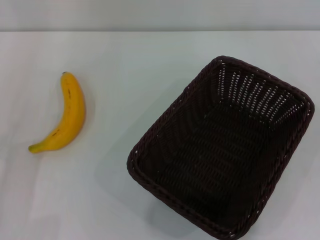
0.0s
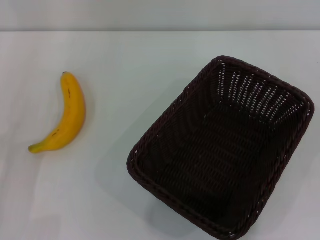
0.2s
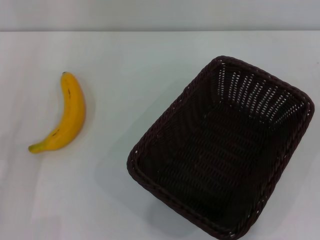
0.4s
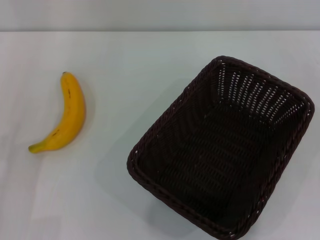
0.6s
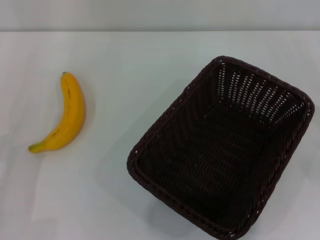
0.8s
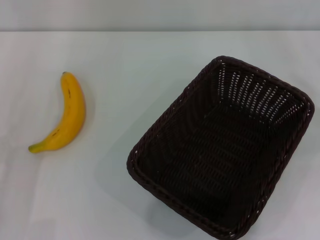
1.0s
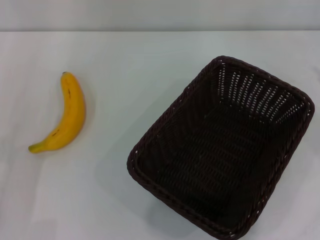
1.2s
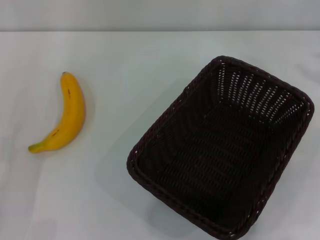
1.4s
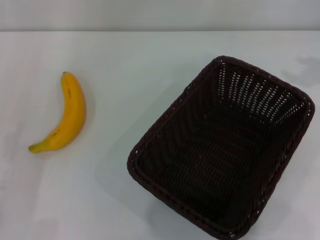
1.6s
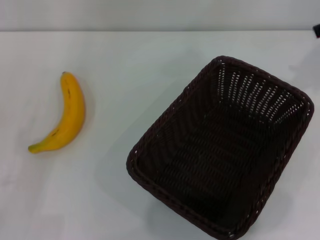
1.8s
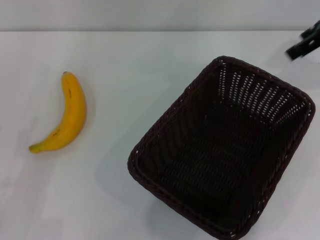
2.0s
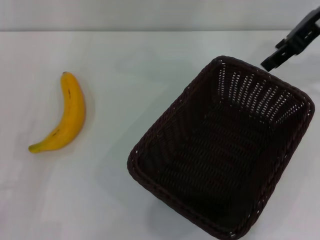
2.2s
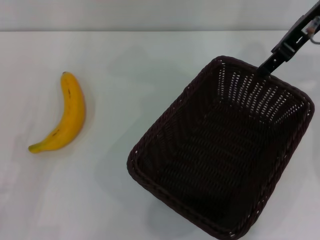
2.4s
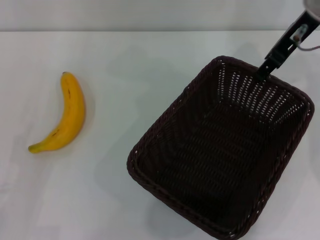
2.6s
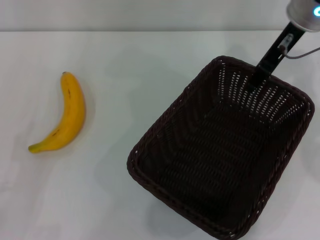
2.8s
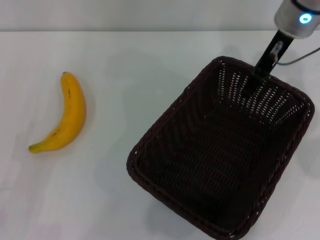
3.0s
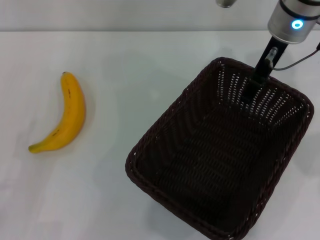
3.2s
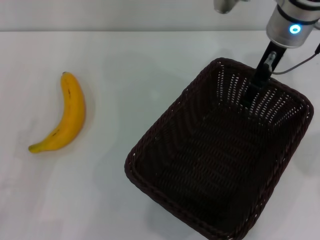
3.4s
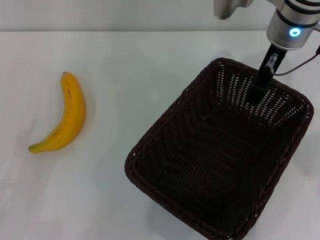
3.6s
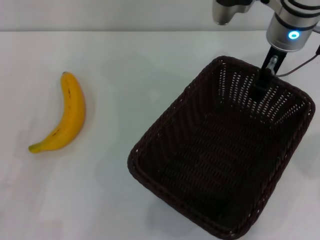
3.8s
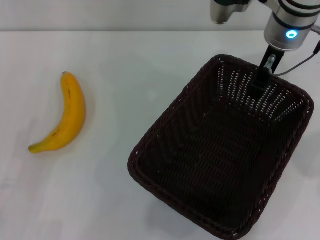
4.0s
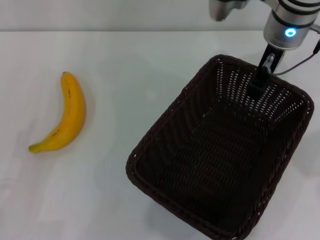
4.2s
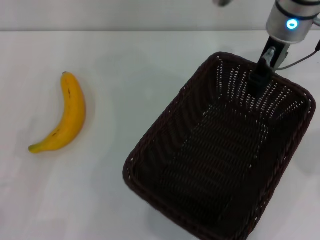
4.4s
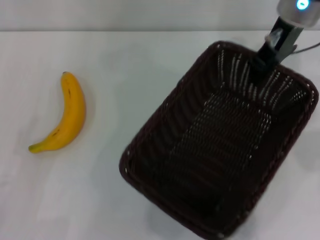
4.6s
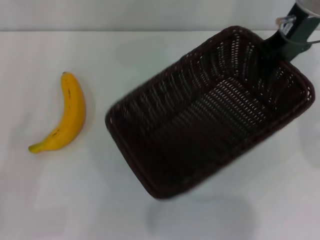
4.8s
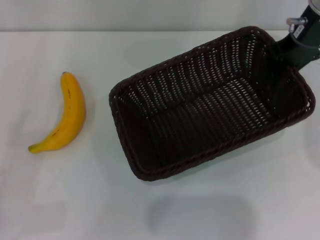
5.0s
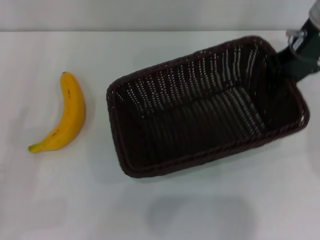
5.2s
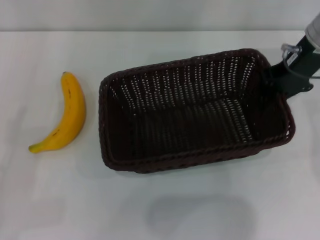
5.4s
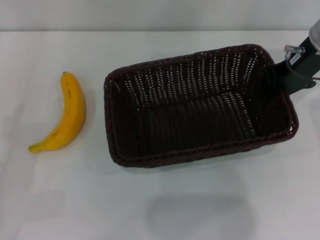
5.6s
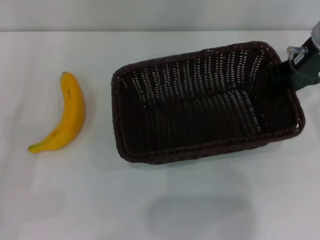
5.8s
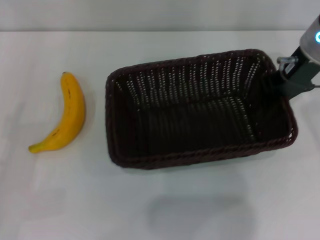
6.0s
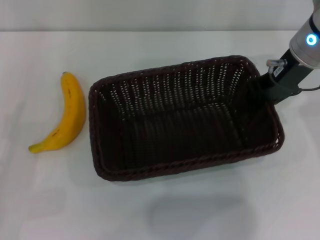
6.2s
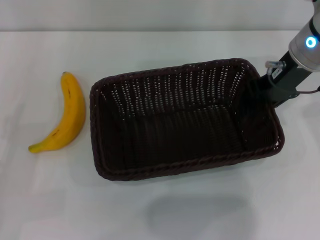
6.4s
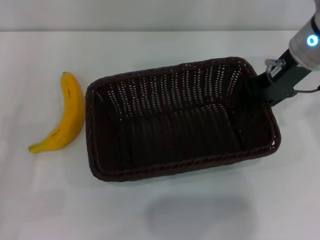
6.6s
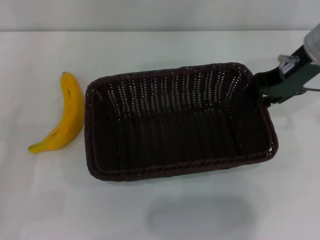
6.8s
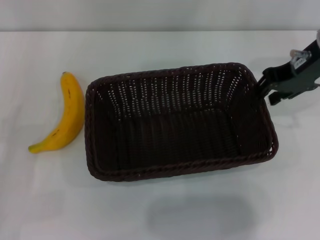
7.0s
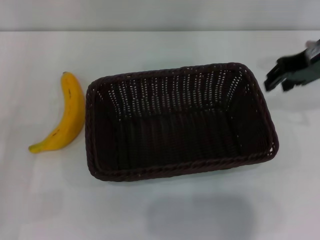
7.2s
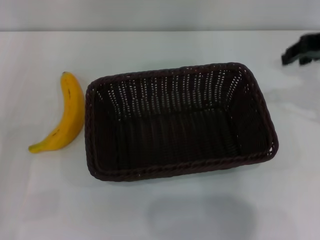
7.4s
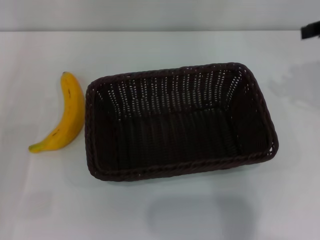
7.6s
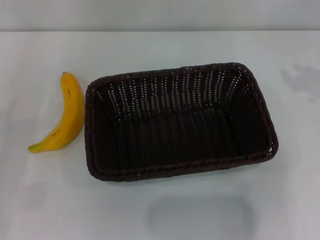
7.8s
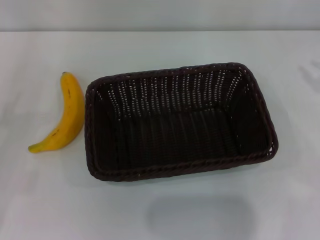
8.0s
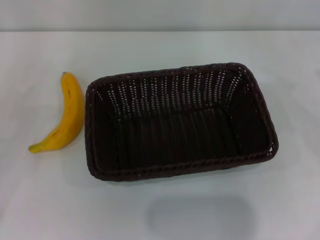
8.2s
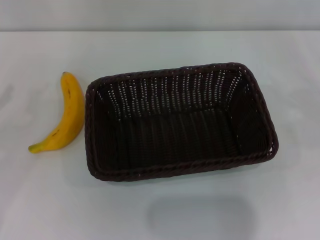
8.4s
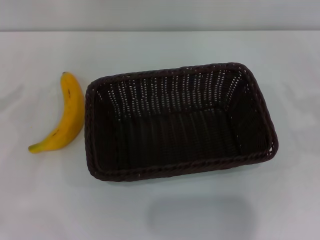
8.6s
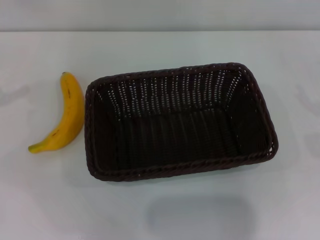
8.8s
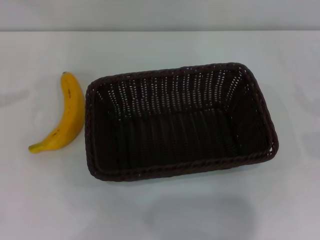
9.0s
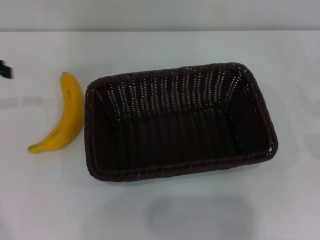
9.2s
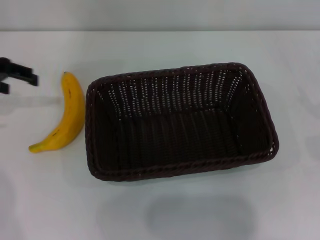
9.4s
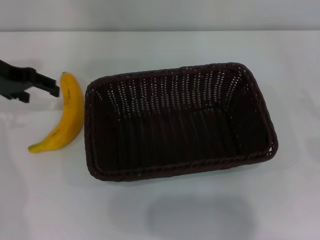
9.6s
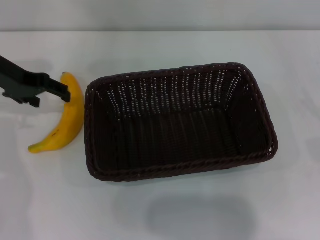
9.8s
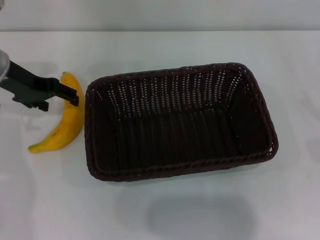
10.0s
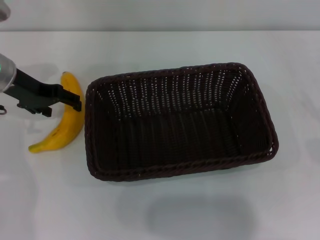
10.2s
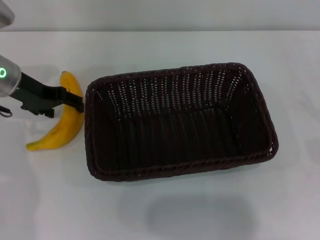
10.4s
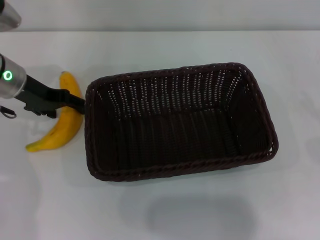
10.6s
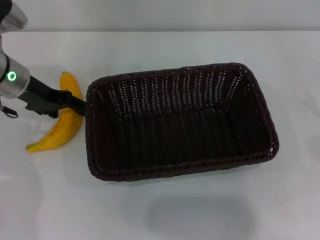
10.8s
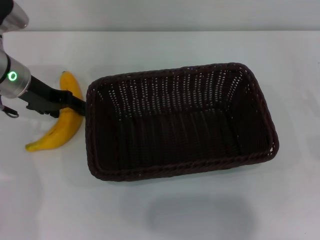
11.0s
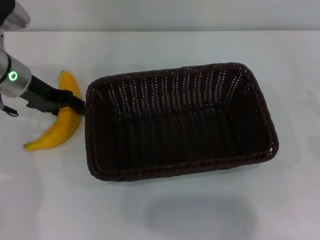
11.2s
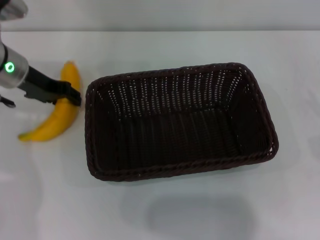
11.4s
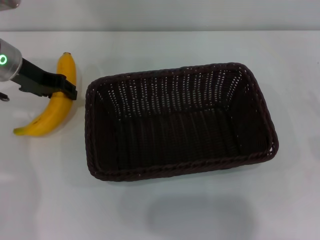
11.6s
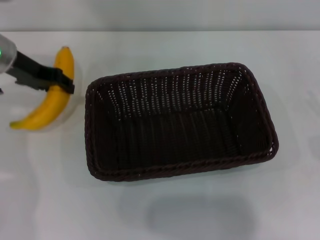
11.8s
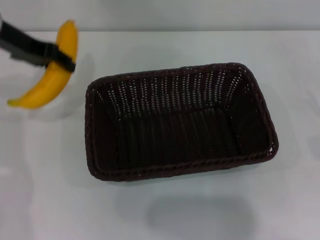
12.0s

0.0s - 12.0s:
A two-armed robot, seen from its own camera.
Step, 0.0s - 4.6s: Pick up the dark basket with the right gripper.
Step, 4.8s - 7.2s: Place the dark basket in the center of view with the right gripper.
Step, 7.4s - 11.8s: Pick up the banana with the left gripper.
1.6s - 3.0s: The right gripper goes some 20 cm to the left.
3.0s - 4.4s: The right gripper closes up.
4.4s - 6.0s: The right gripper changes place by about 5 cm.
6.0s - 7.6s: The right gripper heads to the right, backward and upward, covering approximately 15 cm, and opens up.
9.0s - 10.4s: The left gripper heads to the right and downward, covering approximately 15 cm.
10.4s - 12.0s: The left gripper shifts approximately 10 cm upward, and closes up.

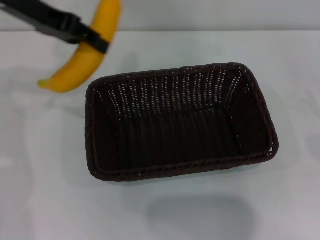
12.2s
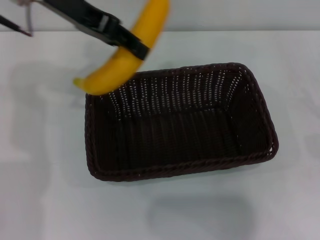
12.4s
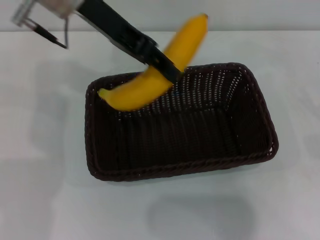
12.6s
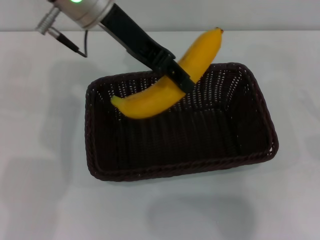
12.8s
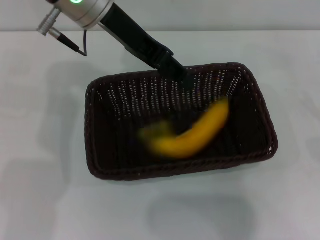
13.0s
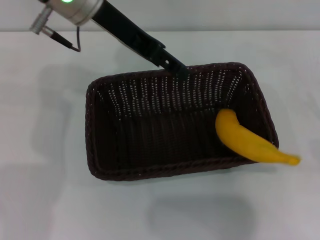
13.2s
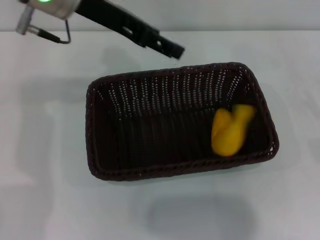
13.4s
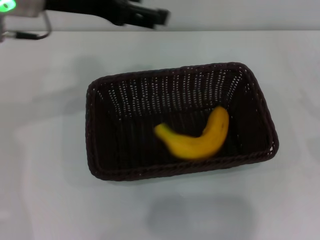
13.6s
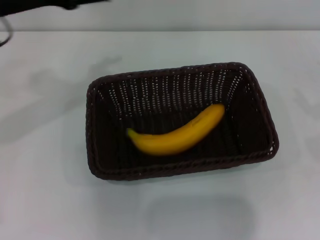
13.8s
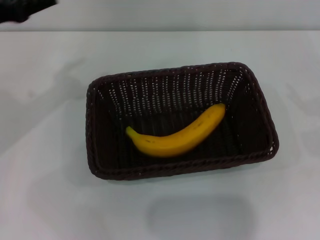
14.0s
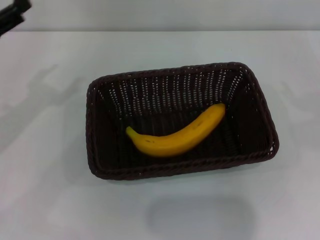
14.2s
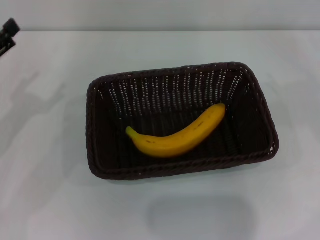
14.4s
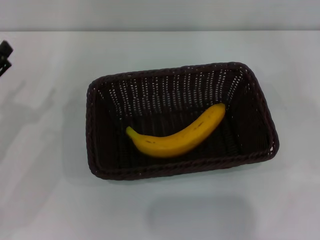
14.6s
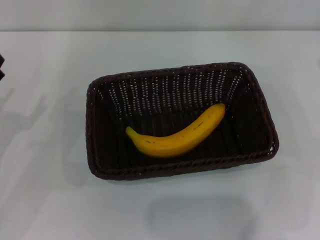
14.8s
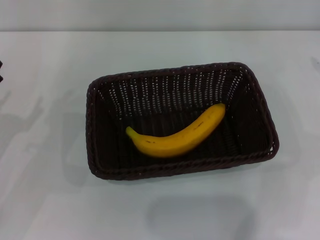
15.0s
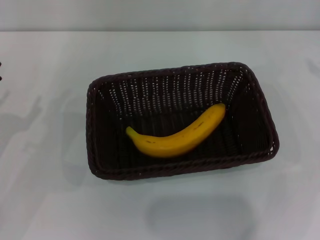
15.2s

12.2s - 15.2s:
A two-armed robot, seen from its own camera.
Step, 12.2s - 13.2s: Place the banana into the dark basket with the left gripper.
12.2s - 13.8s: The left gripper moves backward, about 5 cm, reaches about 10 cm to the right, then returns, and opens.
13.8s - 15.2s: The left gripper goes roughly 25 cm downward, backward and to the left; the right gripper goes approximately 15 cm upward, forward and to the left.

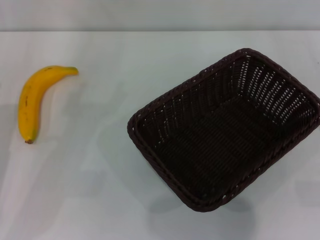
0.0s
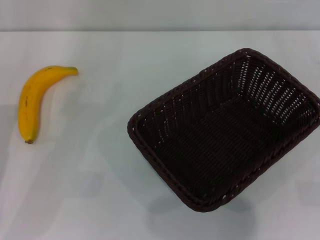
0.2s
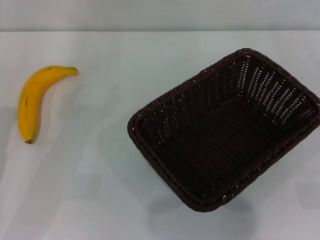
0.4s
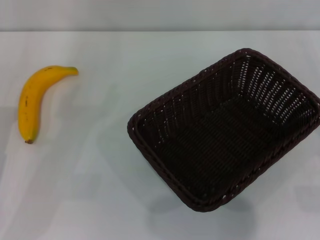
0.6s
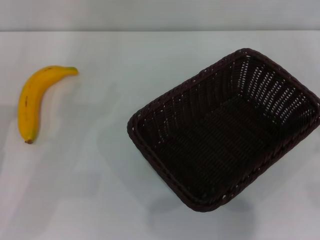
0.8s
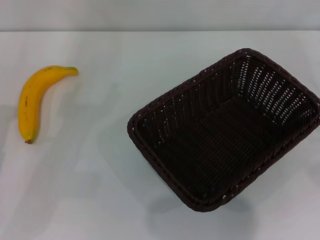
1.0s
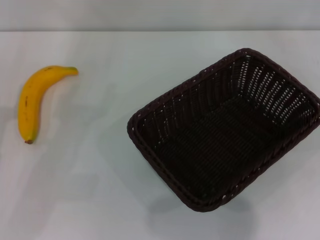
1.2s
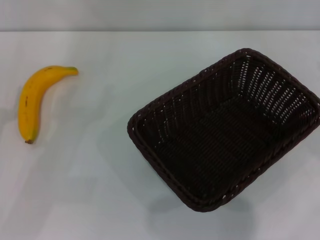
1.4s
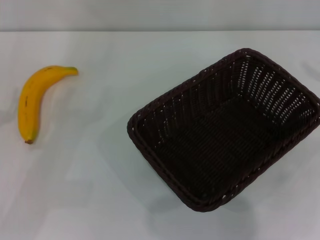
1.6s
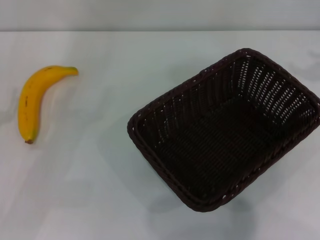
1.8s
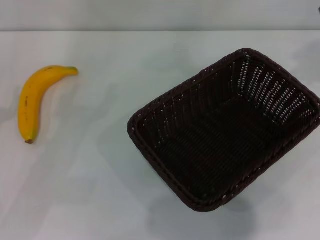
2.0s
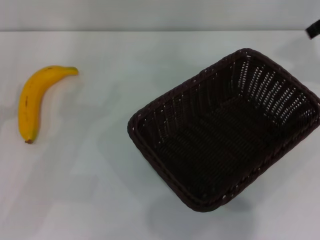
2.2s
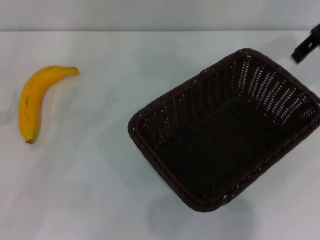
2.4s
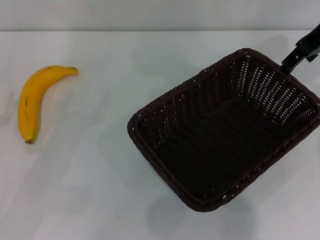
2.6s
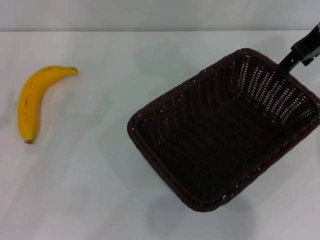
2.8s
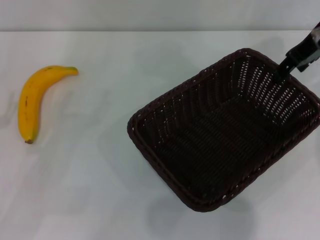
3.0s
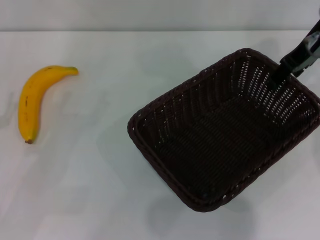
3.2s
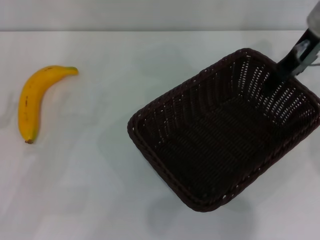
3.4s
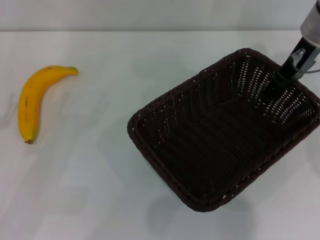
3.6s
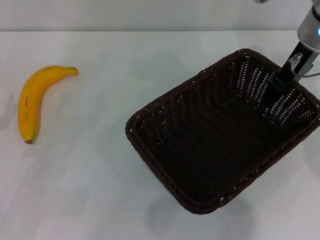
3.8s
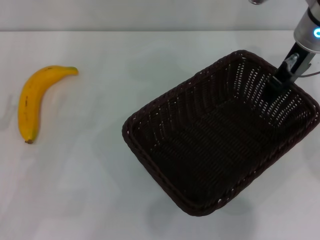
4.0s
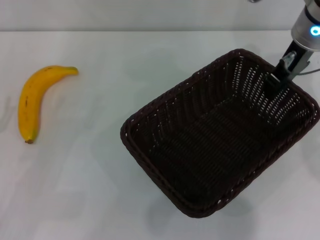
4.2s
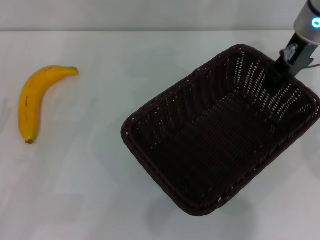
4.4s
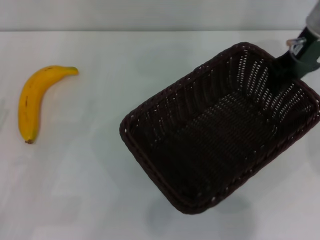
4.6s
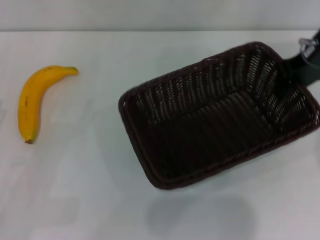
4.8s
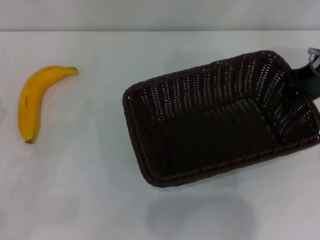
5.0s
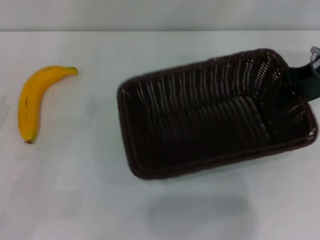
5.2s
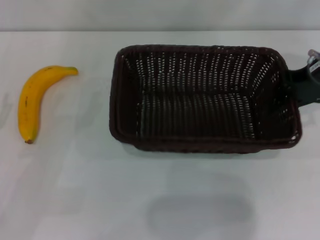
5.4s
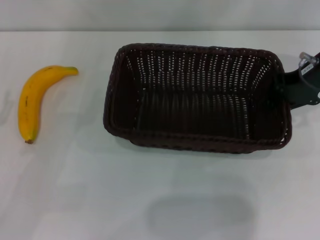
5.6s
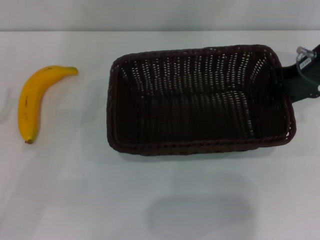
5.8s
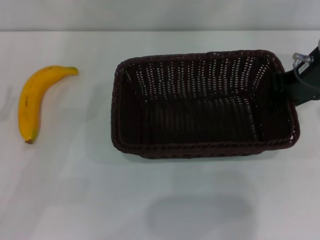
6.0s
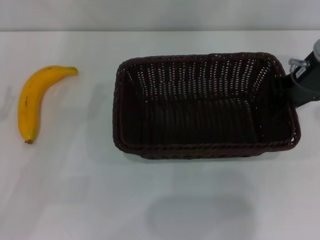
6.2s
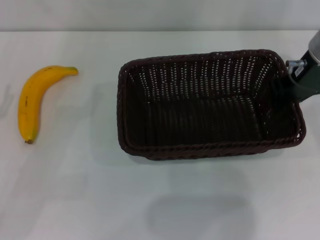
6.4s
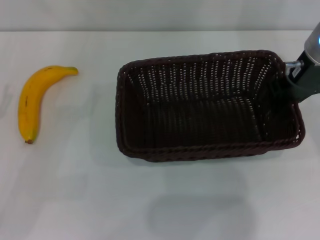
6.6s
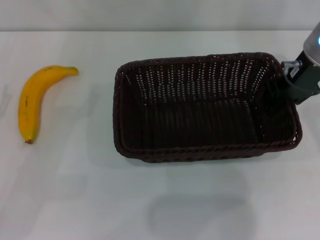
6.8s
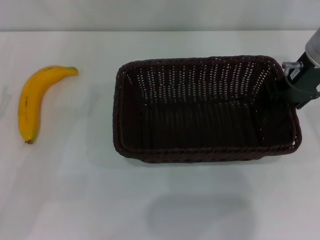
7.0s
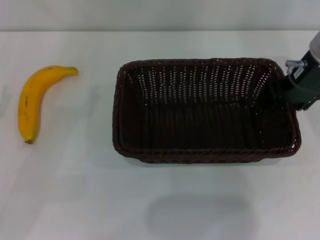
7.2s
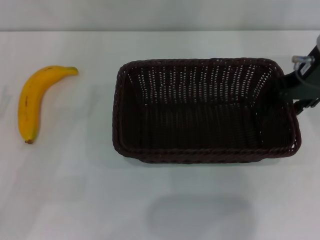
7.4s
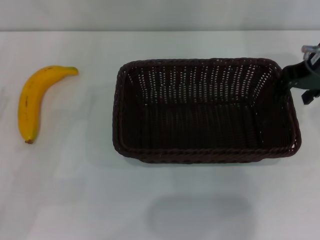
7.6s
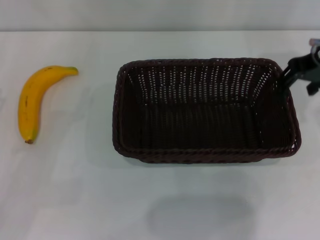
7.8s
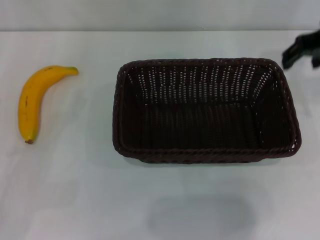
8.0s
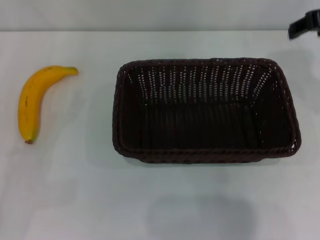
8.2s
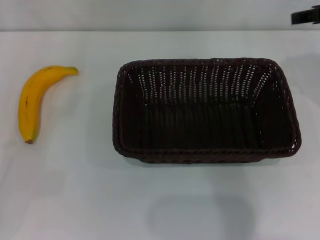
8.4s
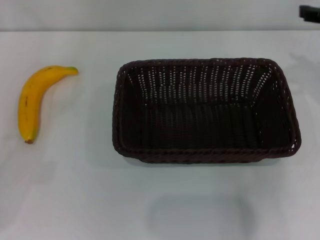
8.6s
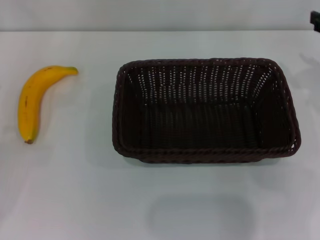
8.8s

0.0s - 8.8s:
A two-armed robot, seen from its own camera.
Step, 0.0s - 4.6s: Pick up the dark basket with the right gripper.
Step, 4.8s - 7.8s: Place the dark basket in the center of view with the right gripper.
1.4s - 3.0s: The right gripper moves to the left and forward, some 25 cm.
3.0s - 4.4s: The right gripper ends up roughly 5 cm from where it was, and closes up.
4.4s - 5.8s: The right gripper shifts by some 5 cm.
5.8s - 7.4s: The right gripper opens.
7.4s - 8.8s: The right gripper shifts approximately 10 cm to the right and backward.
